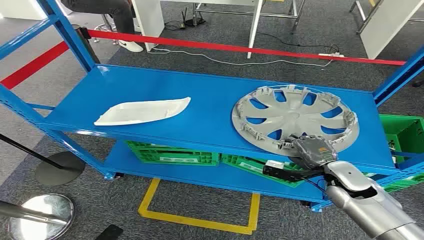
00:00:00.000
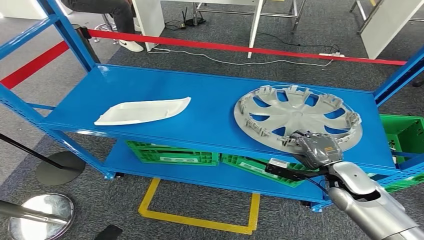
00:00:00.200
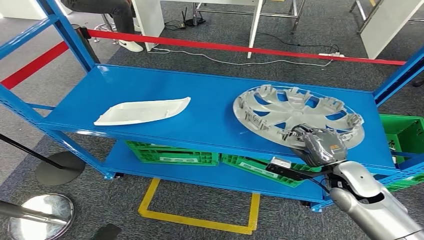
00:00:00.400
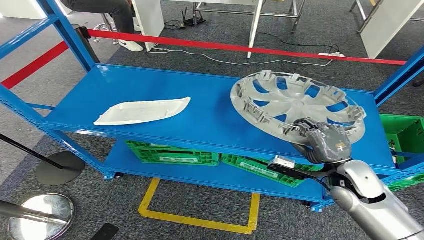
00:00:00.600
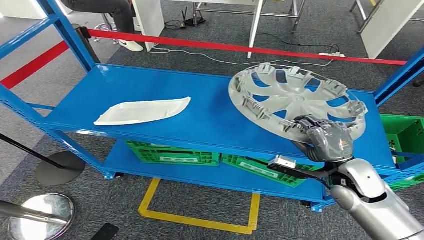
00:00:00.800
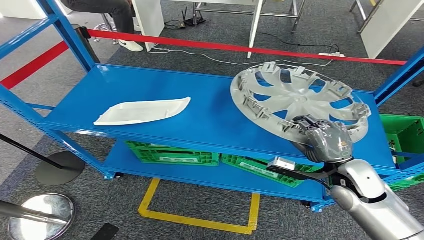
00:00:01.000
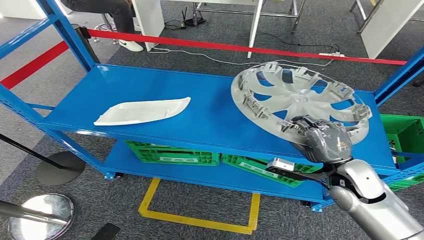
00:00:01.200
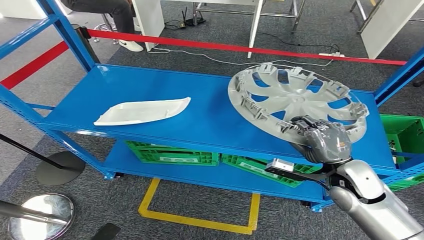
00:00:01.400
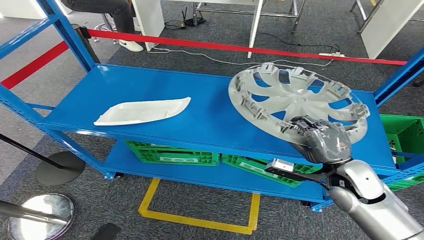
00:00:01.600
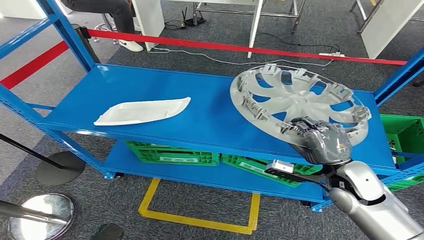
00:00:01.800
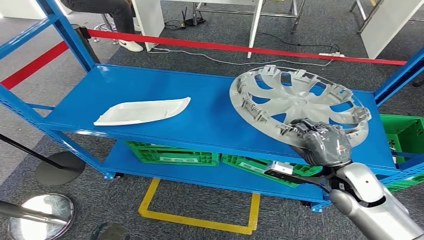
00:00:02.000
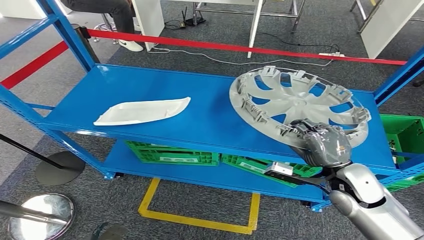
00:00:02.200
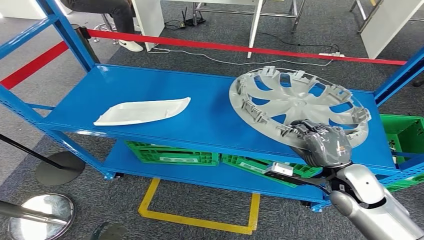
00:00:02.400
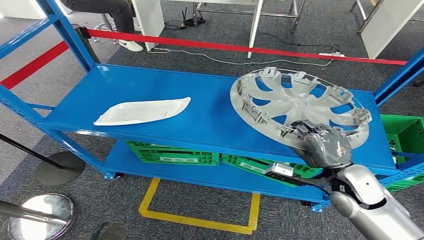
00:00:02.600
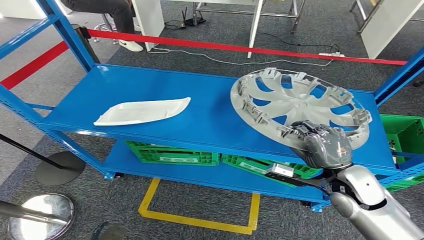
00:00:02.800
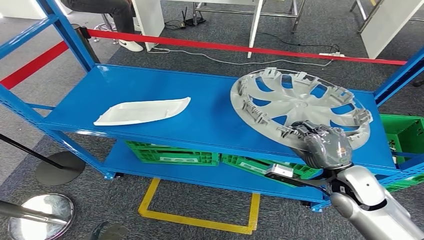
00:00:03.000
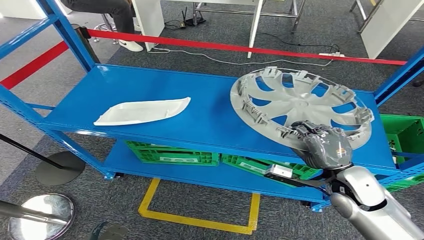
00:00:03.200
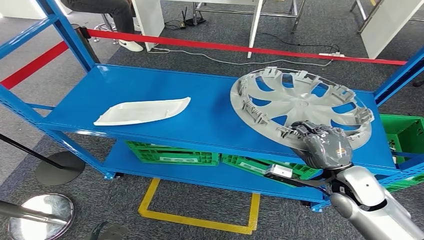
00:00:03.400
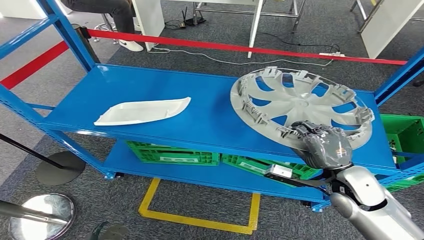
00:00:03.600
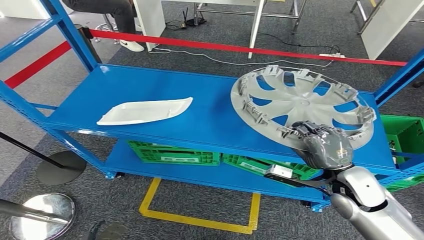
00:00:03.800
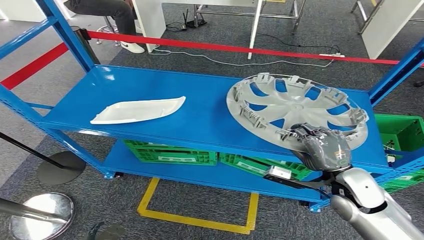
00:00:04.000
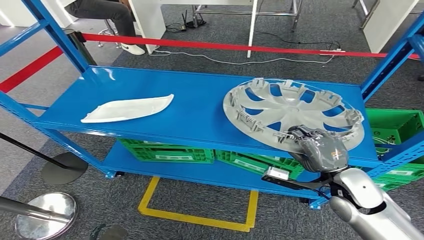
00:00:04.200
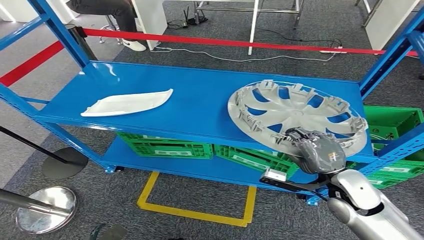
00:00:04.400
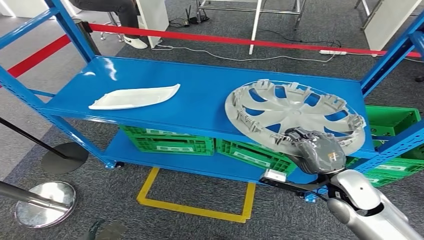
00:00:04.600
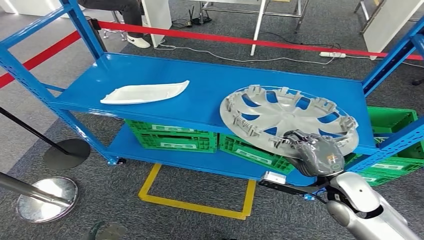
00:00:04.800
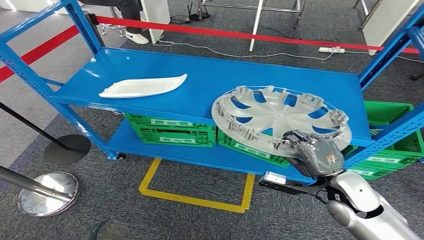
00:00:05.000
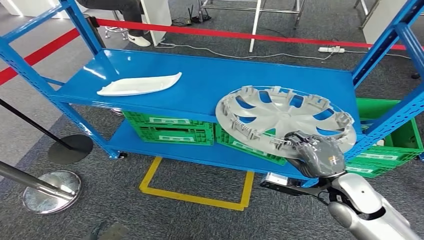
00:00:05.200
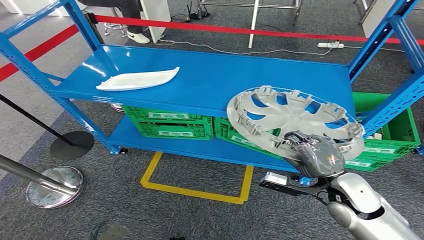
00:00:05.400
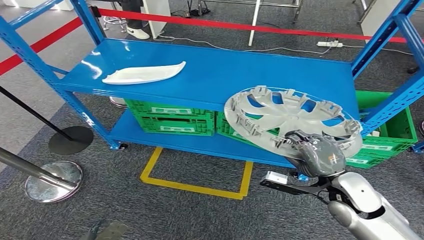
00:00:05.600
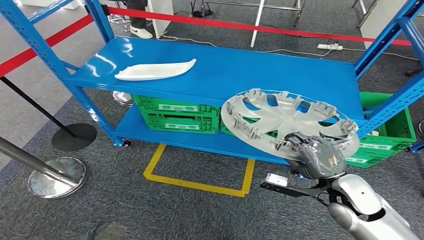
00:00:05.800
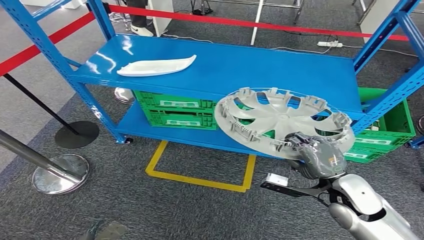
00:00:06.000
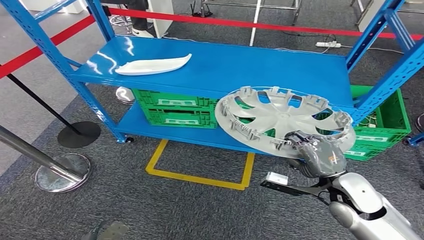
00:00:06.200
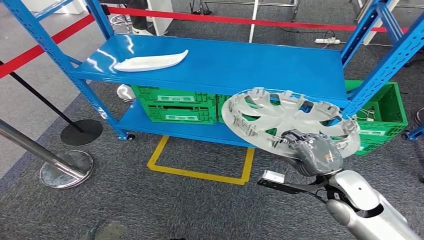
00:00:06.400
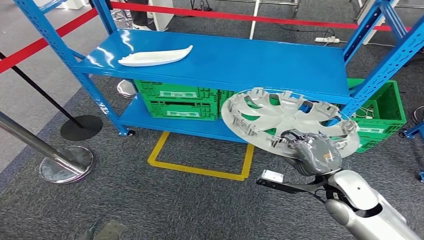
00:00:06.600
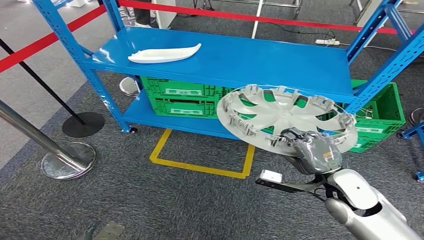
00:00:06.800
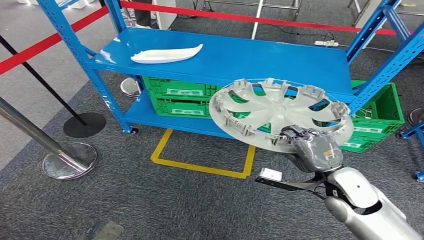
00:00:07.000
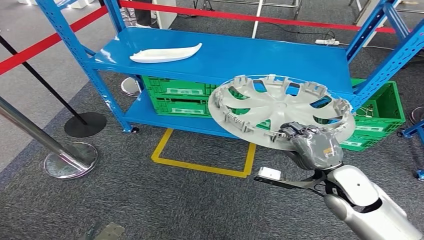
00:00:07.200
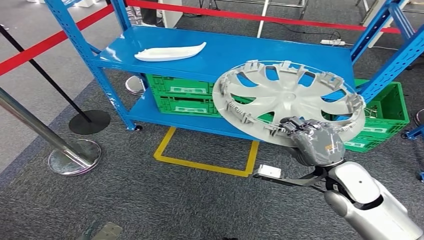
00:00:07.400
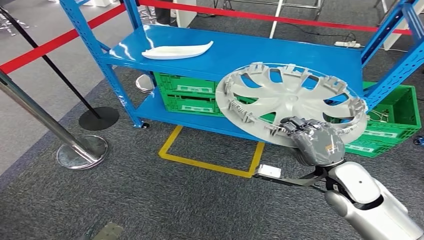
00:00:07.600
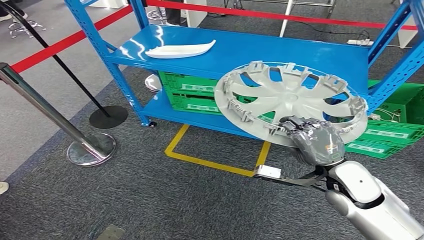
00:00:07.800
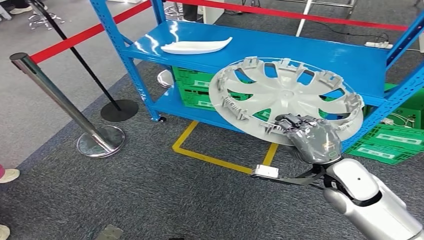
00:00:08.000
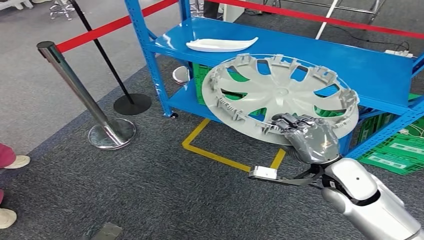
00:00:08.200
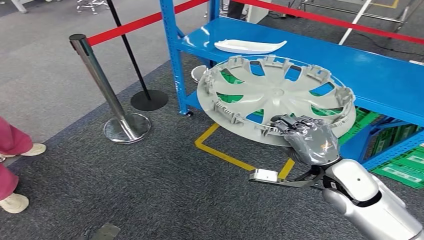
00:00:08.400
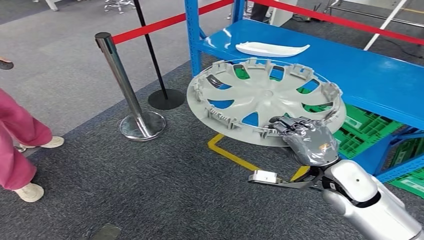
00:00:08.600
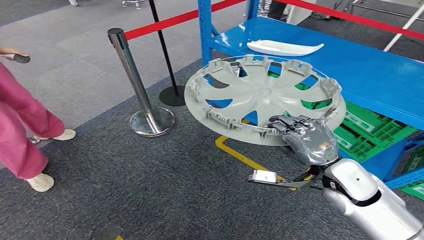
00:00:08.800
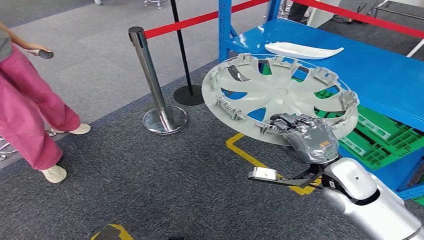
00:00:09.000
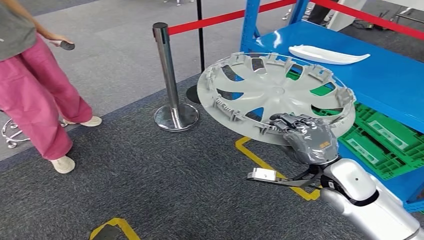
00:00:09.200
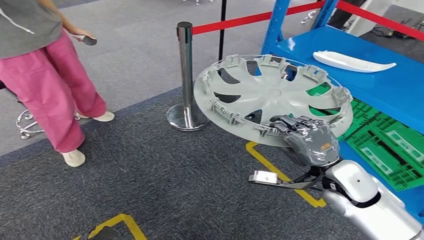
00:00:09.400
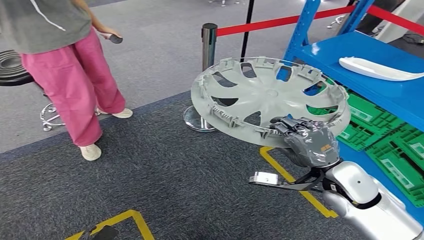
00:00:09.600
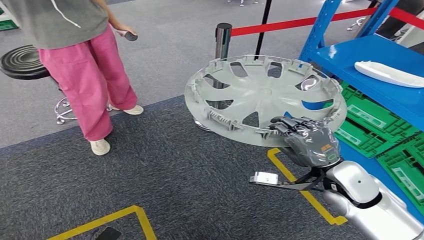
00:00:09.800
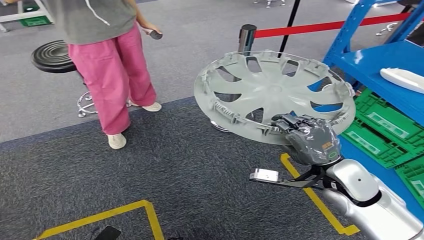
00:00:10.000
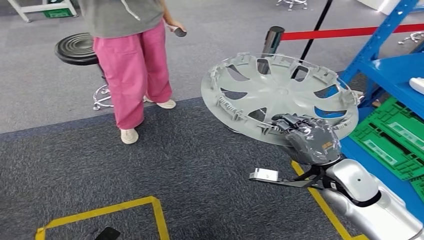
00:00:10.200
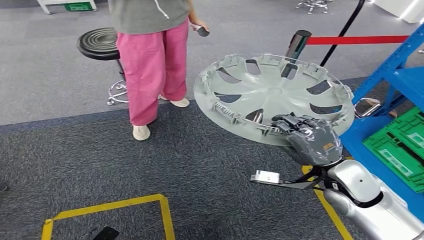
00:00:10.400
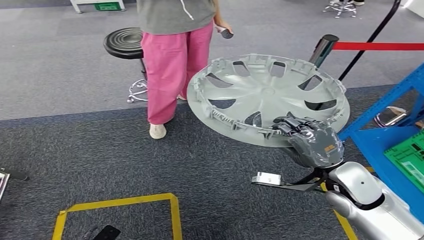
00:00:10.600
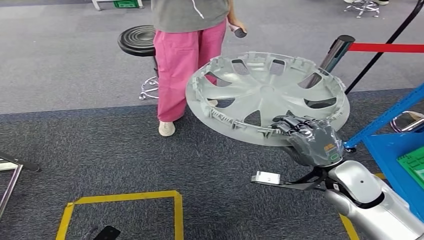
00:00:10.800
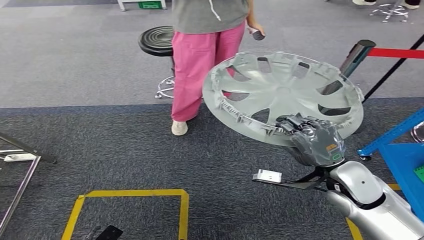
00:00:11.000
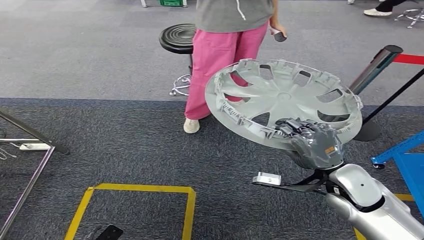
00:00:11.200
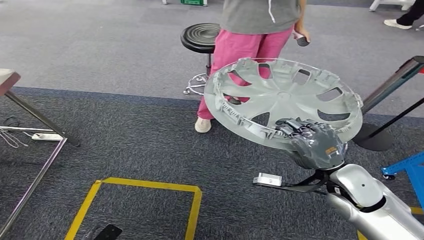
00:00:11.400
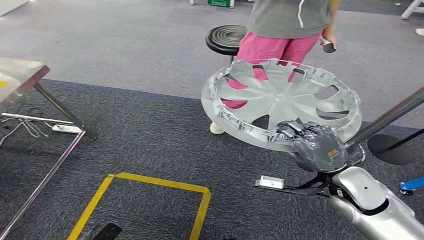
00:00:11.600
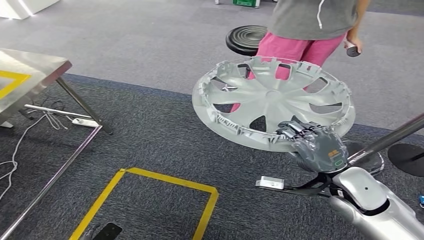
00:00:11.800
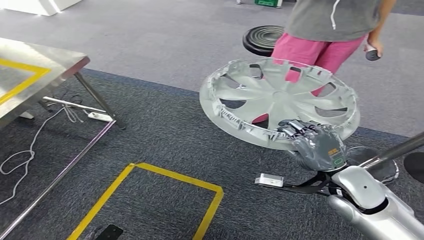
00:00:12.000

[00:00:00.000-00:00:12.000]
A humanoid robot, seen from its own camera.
Step, 00:00:00.000 to 00:00:03.000: Pick up the small component from the shelf.
00:00:01.600 to 00:00:03.000: The hands move only a little.

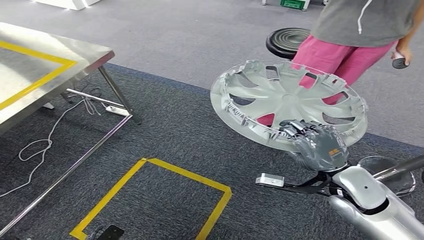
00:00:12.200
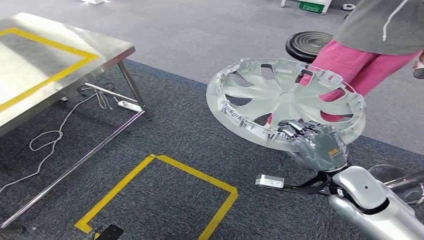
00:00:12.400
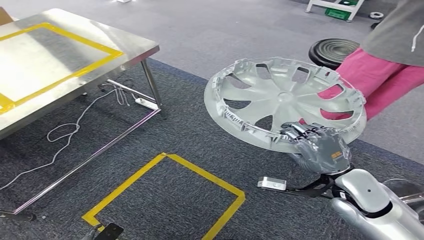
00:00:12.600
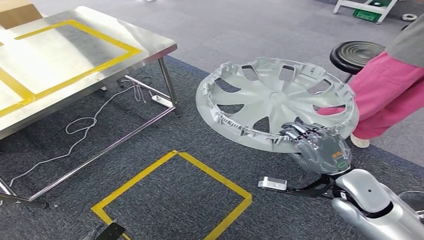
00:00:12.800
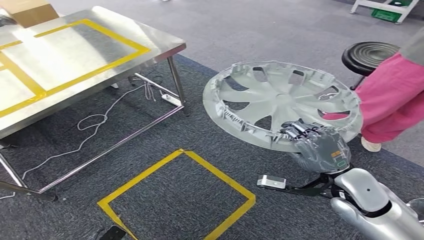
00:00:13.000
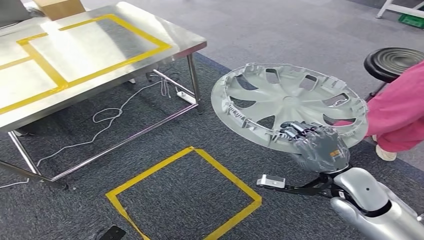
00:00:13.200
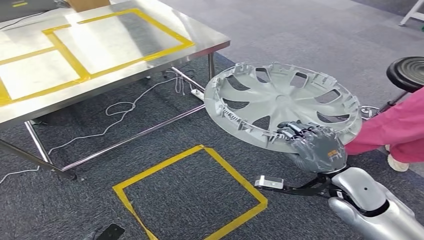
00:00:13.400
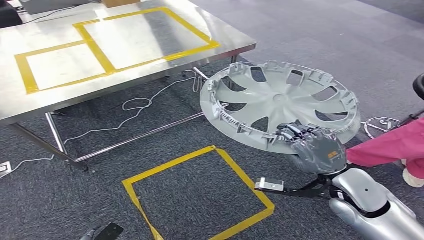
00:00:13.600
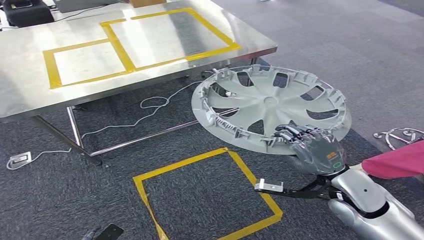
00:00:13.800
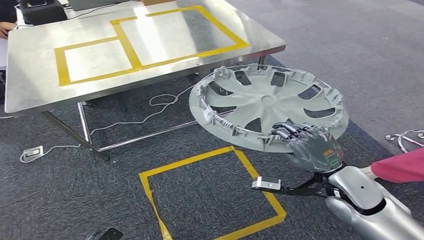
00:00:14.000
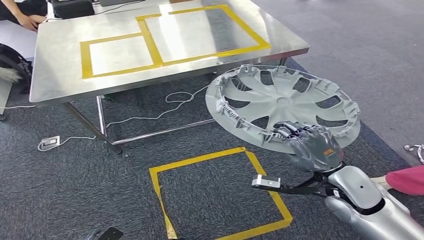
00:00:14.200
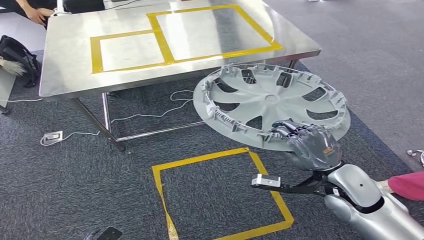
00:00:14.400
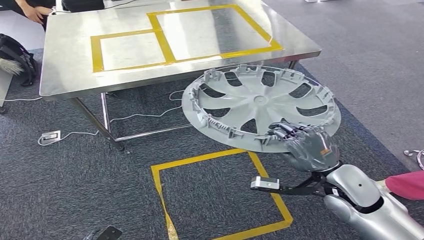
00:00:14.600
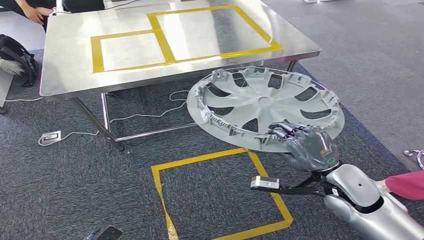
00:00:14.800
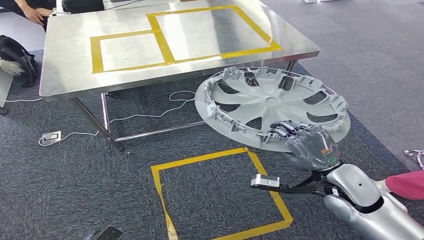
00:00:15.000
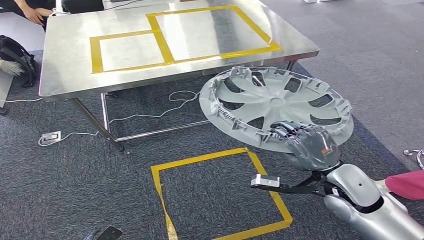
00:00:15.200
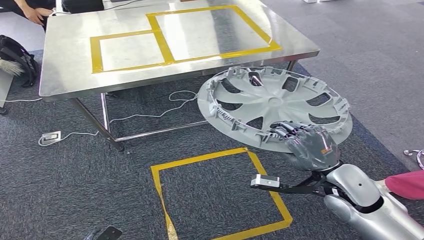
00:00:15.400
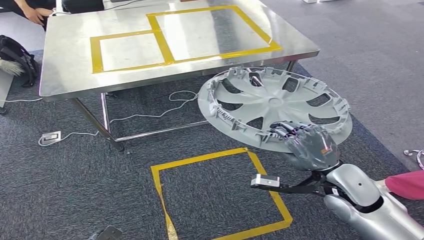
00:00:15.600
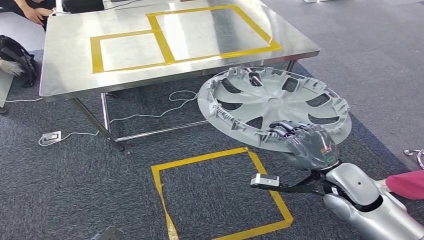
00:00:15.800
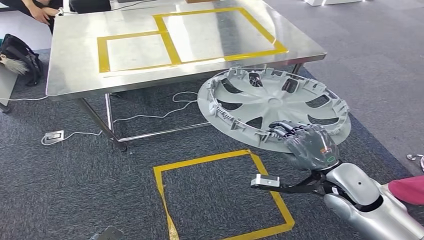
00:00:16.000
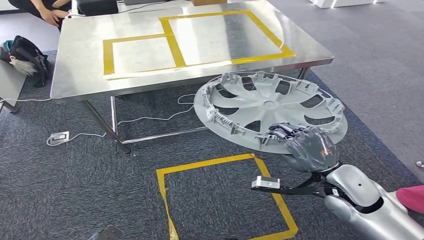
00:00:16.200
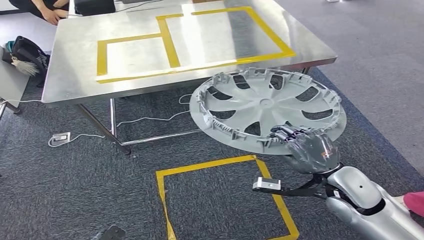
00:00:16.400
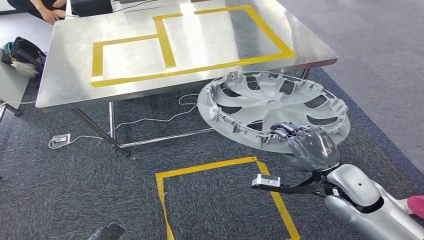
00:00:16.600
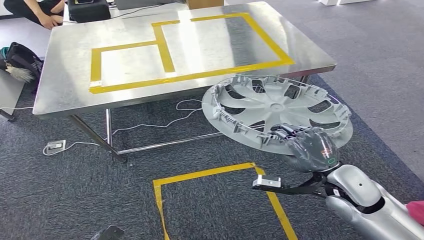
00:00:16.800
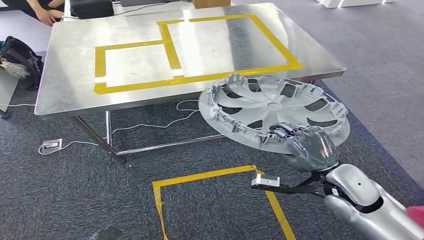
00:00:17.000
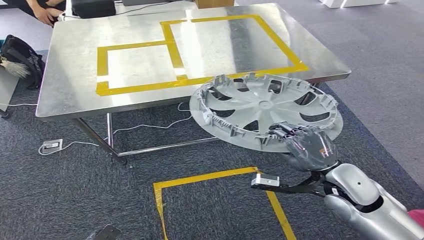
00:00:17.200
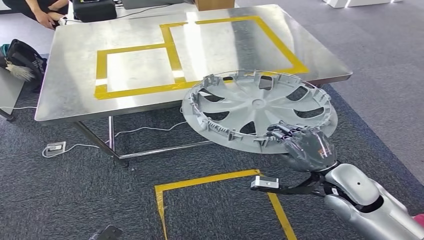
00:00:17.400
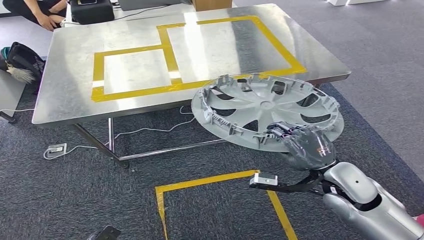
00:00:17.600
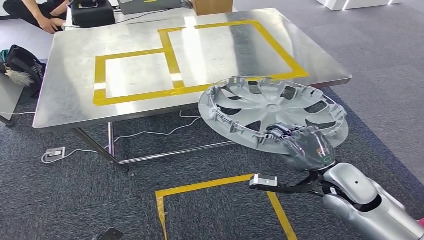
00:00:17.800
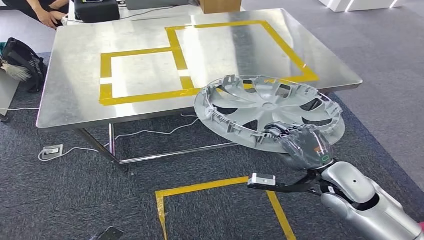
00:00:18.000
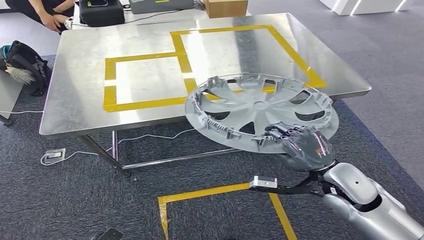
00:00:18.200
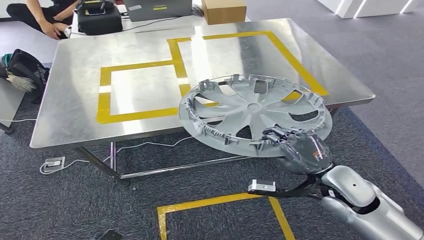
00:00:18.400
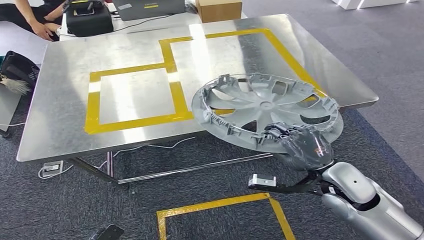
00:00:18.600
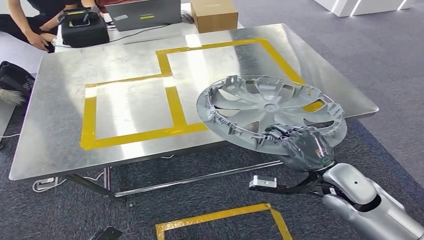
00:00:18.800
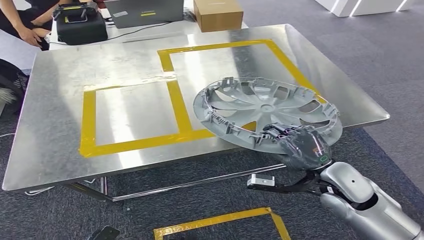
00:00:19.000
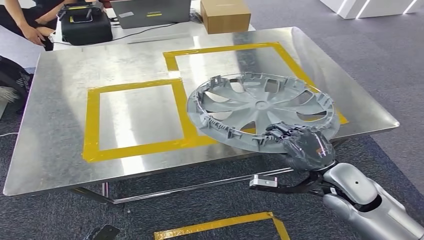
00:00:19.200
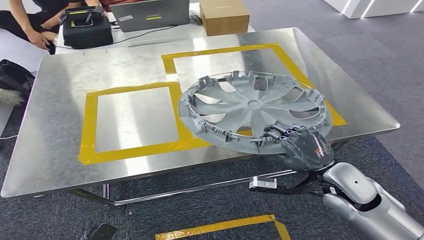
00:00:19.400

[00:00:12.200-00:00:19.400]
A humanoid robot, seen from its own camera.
Step, 00:00:12.200 to 00:00:14.600: Move the small component to the workbench.
